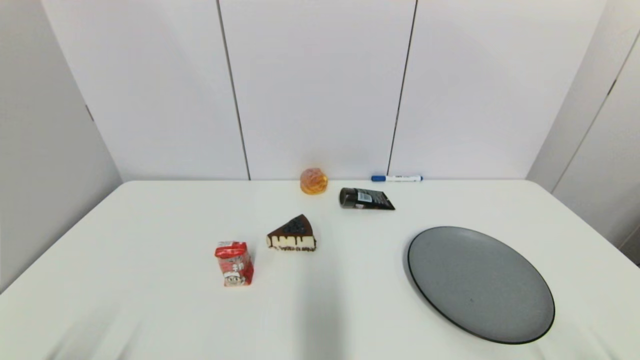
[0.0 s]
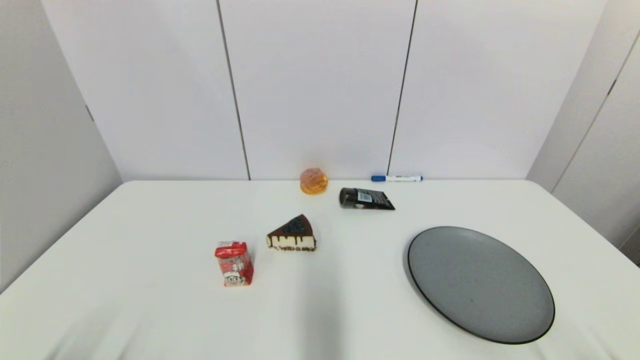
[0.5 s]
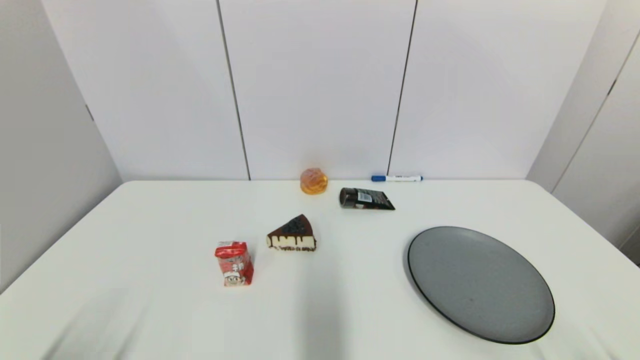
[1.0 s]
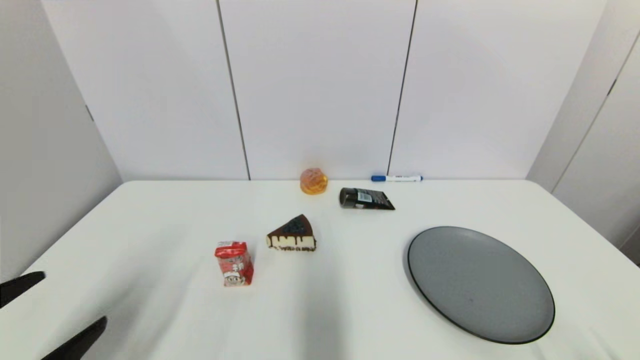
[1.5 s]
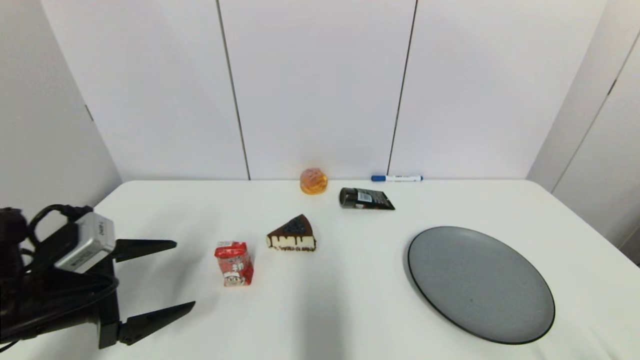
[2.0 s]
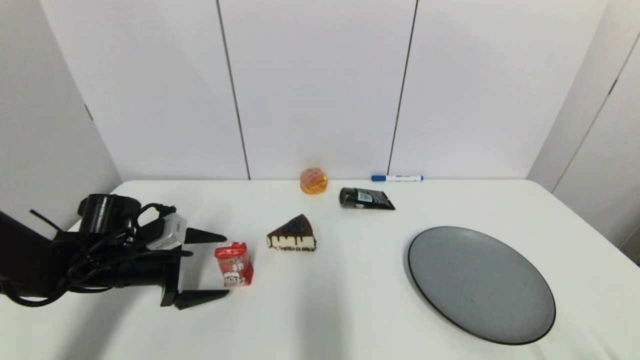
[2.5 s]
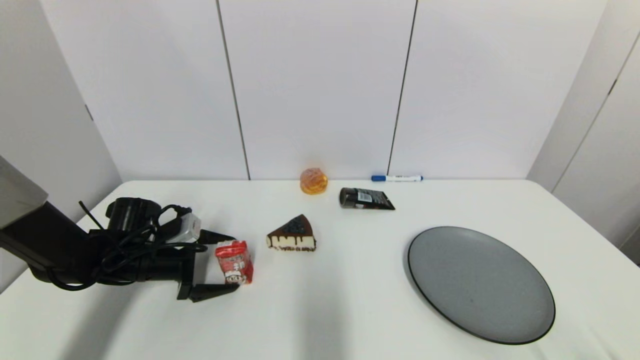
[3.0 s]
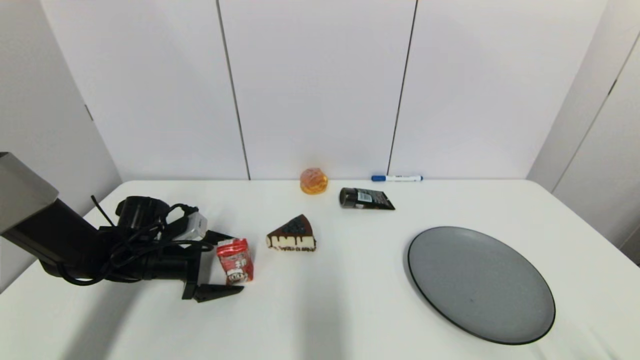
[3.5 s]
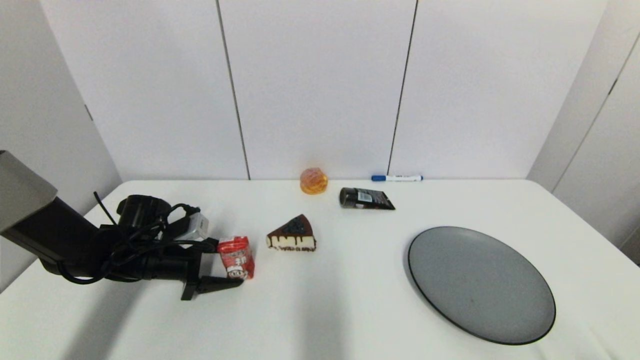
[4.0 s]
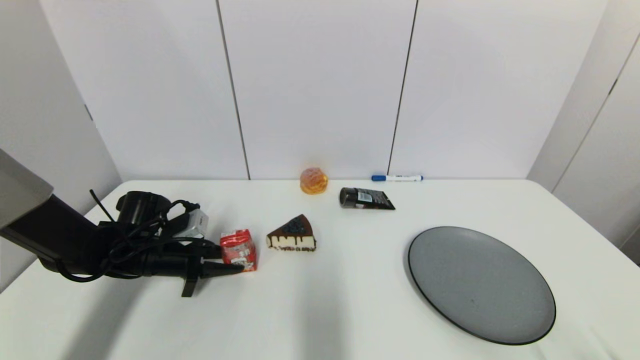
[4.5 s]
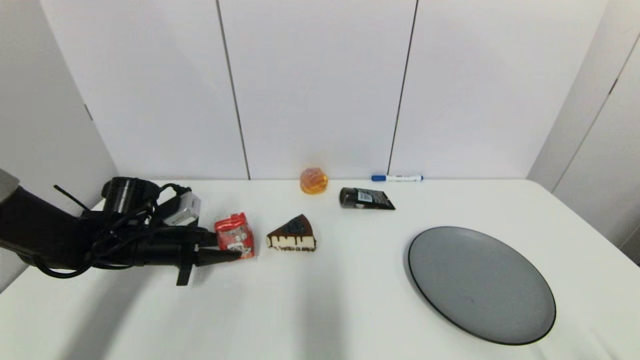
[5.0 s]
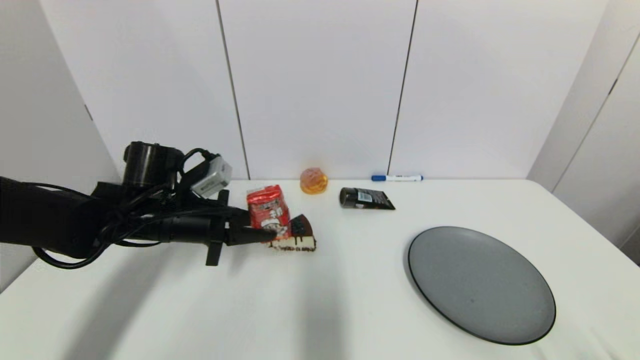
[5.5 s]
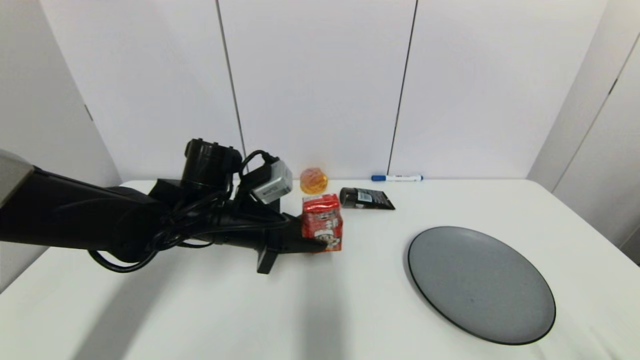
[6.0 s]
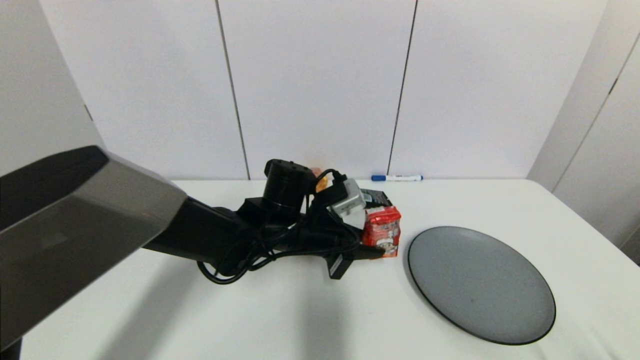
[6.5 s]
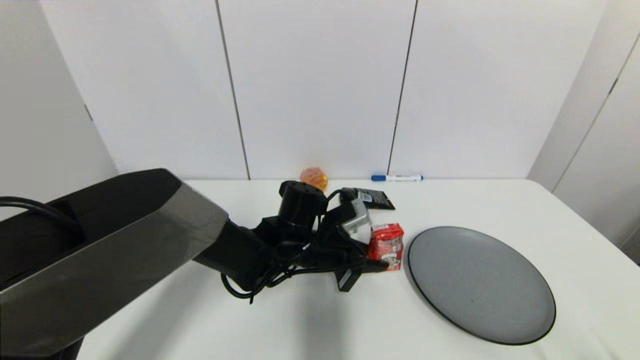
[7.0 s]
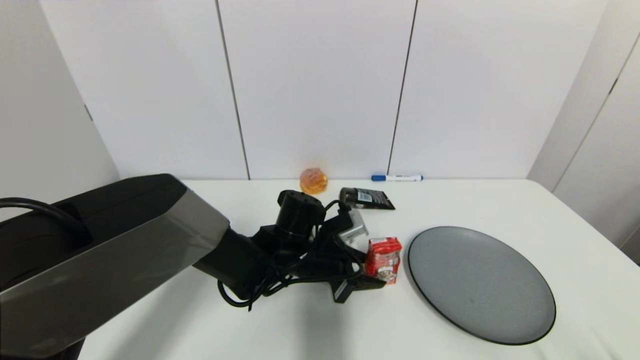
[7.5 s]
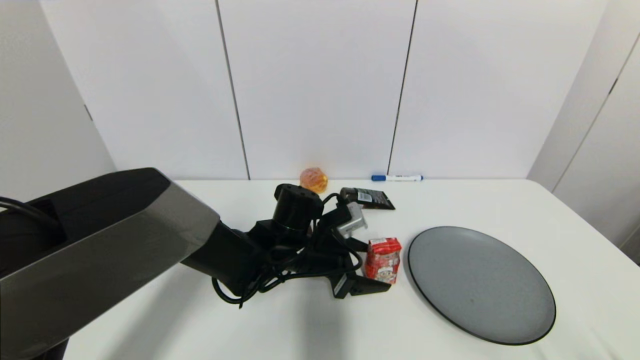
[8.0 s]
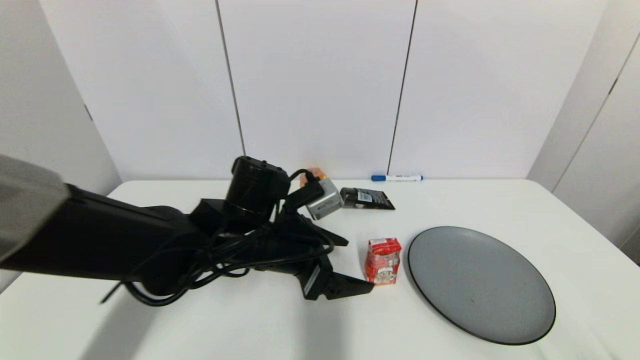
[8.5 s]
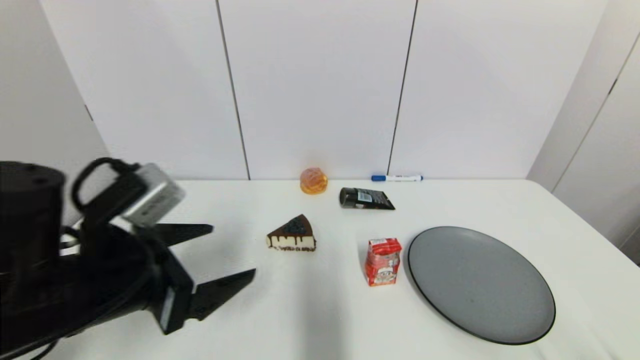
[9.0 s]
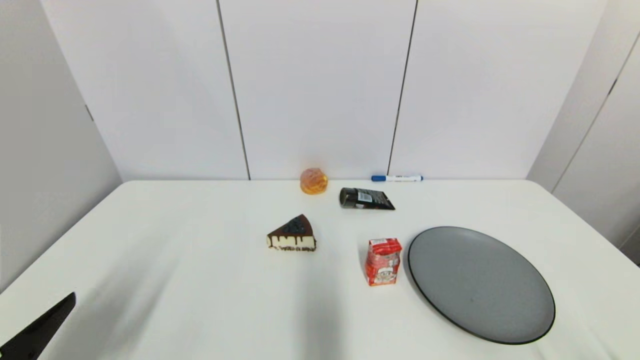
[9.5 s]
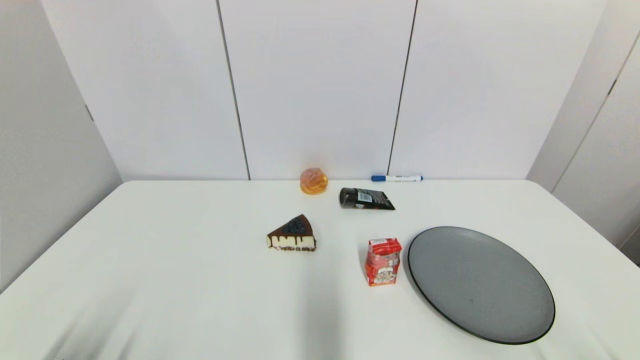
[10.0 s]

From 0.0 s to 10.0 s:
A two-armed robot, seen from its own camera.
Step, from 1.5 s to 4.0 s: Grasp the wangzai milk with left gripper.
Step, from 5.0 s to 7.5 s: Place the wangzai milk on the table with left gripper.
From 0.0 s to 2.0 s: The left gripper is displaced forward by about 20 cm.
From 2.0 s to 4.0 s: The left gripper goes some 15 cm forward and downward, and closes up.
From 4.0 s to 6.0 s: The left gripper shifts some 20 cm to the right and upward, and closes.
From 6.0 s to 8.0 s: The left gripper moves to the right and downward, about 10 cm, and opens.
From 8.0 s to 10.0 s: The left gripper moves backward and to the left, about 40 cm.

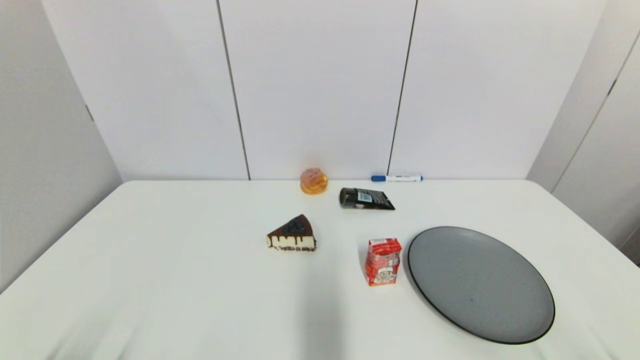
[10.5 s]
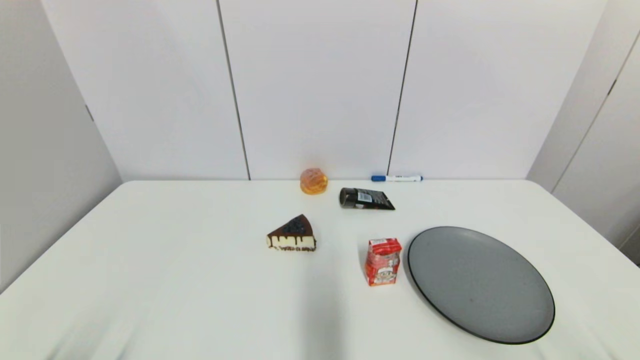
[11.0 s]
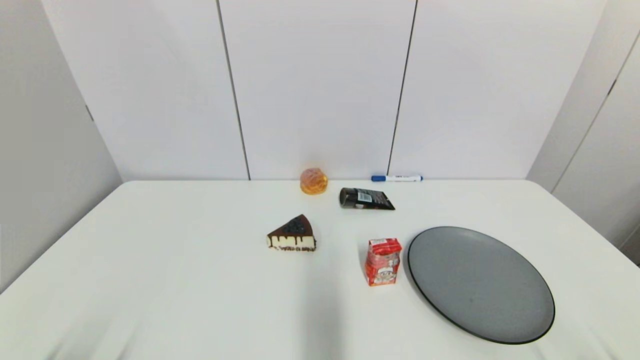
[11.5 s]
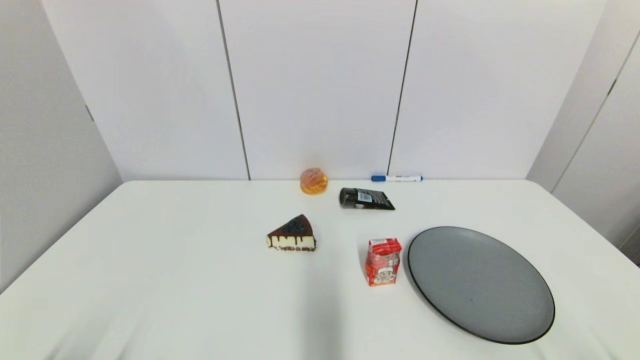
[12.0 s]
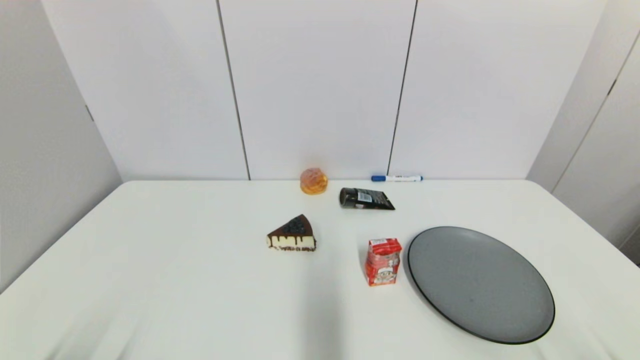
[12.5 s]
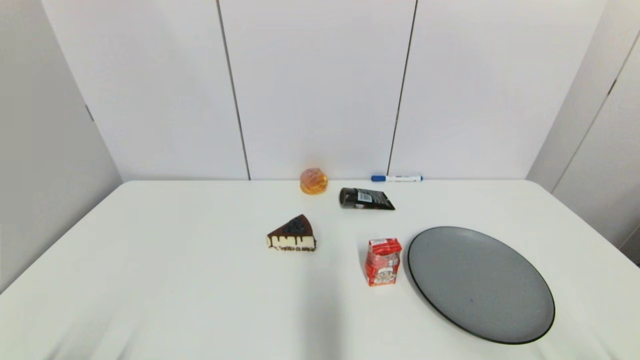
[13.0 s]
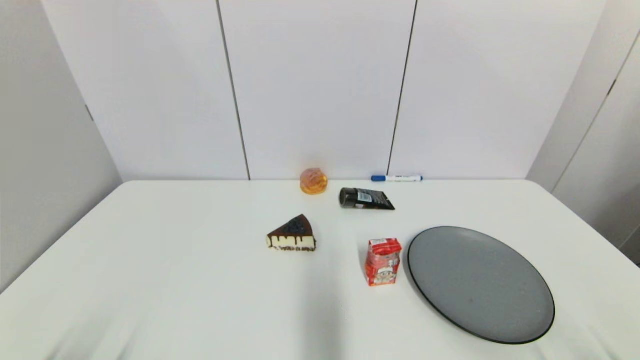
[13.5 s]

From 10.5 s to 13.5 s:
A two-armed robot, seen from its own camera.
From 10.5 s to 13.5 s: Both grippers stay about where they are.
